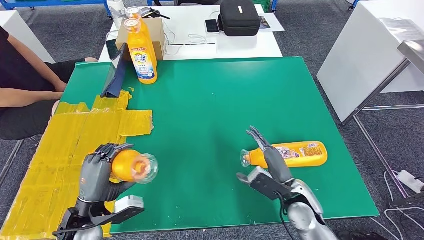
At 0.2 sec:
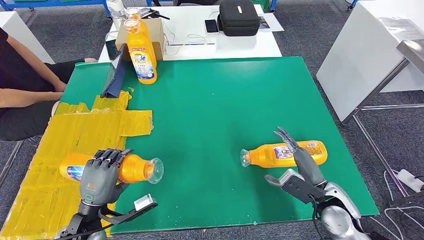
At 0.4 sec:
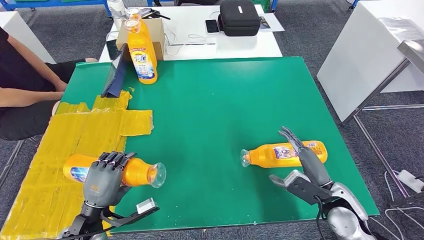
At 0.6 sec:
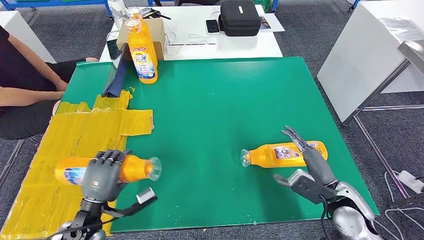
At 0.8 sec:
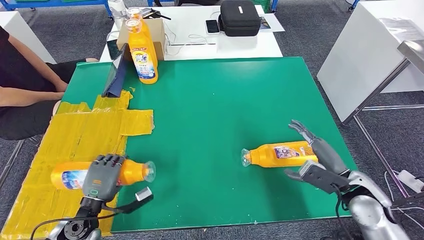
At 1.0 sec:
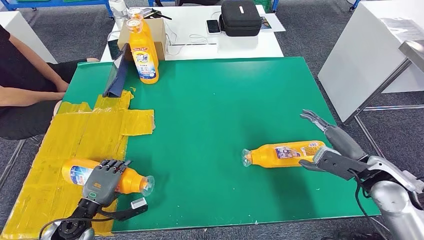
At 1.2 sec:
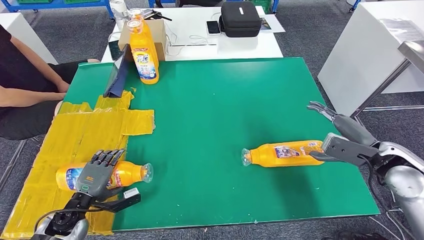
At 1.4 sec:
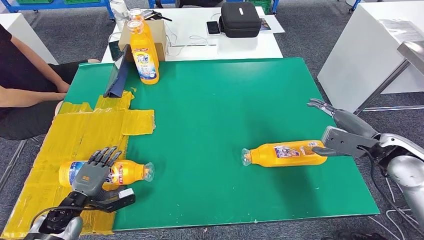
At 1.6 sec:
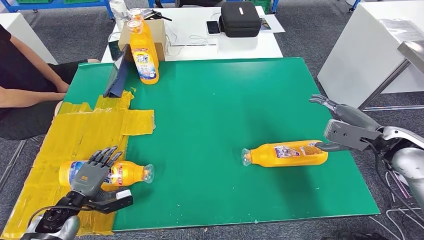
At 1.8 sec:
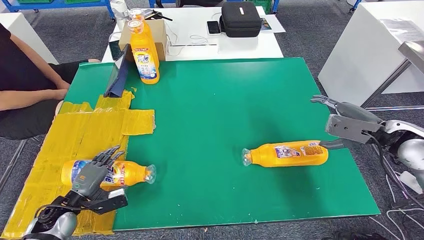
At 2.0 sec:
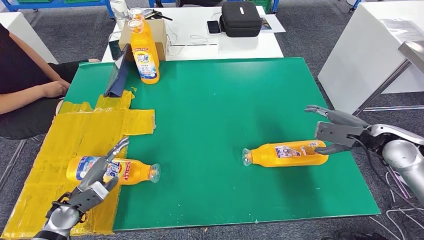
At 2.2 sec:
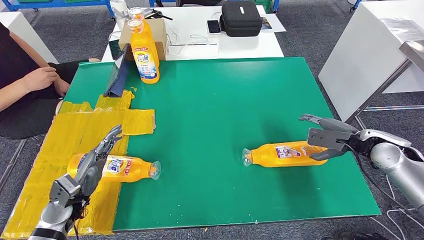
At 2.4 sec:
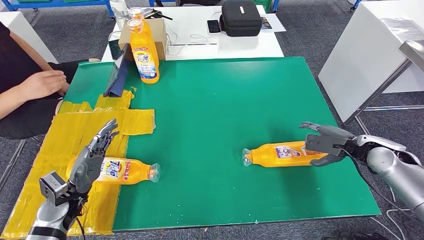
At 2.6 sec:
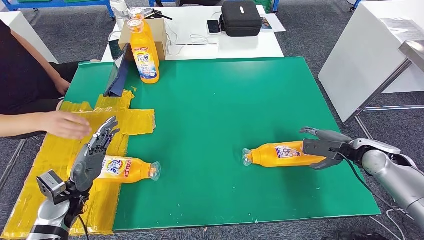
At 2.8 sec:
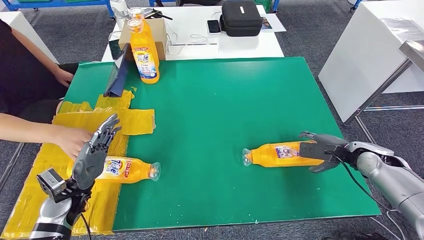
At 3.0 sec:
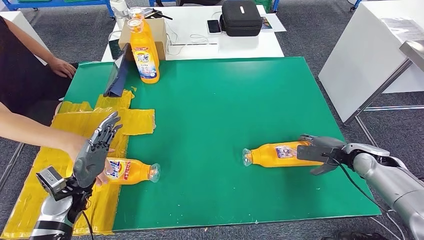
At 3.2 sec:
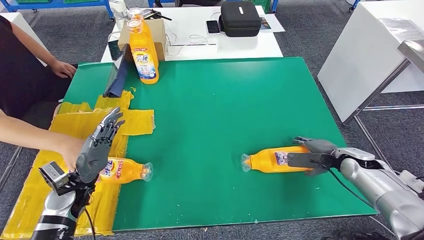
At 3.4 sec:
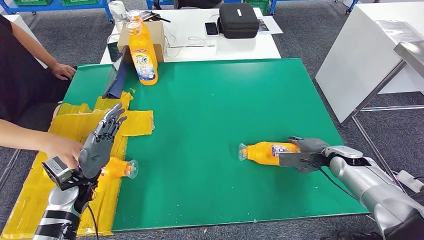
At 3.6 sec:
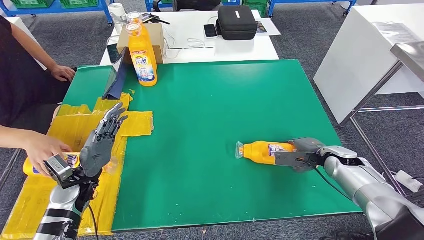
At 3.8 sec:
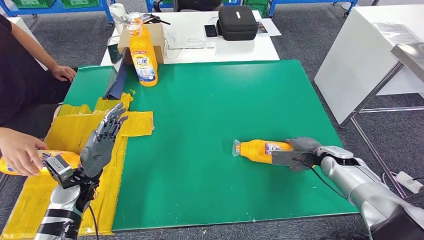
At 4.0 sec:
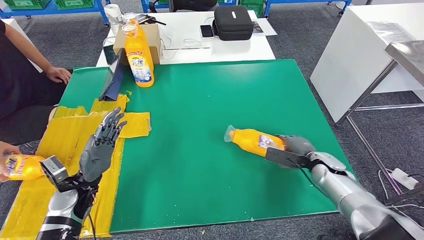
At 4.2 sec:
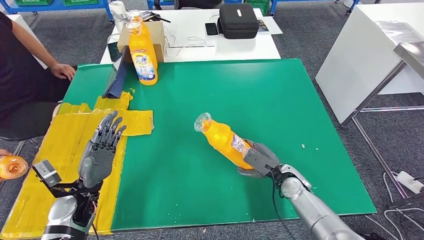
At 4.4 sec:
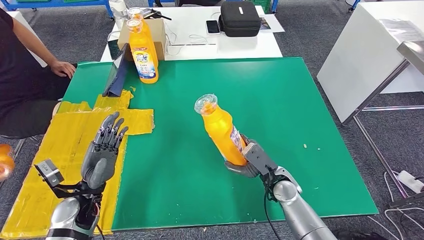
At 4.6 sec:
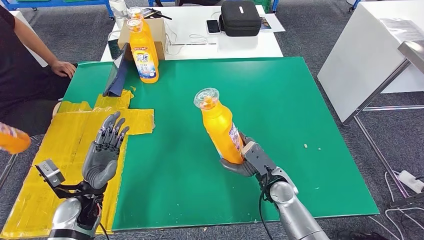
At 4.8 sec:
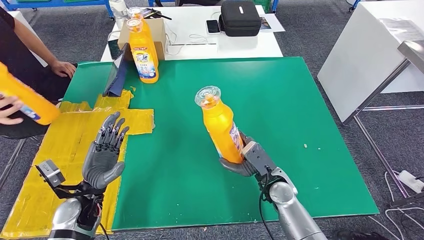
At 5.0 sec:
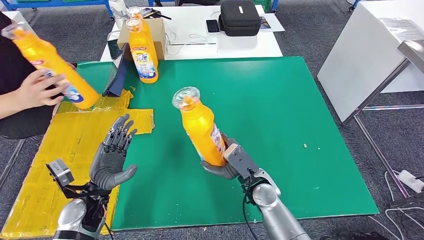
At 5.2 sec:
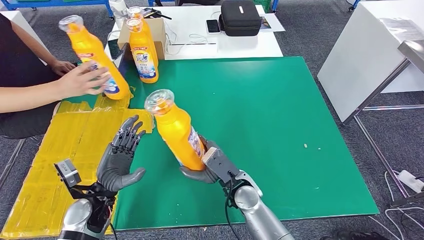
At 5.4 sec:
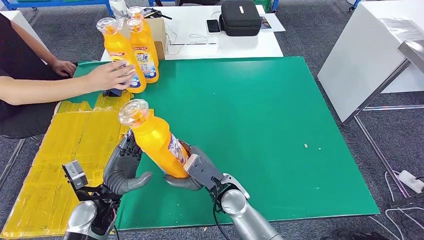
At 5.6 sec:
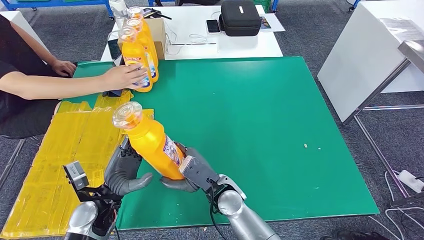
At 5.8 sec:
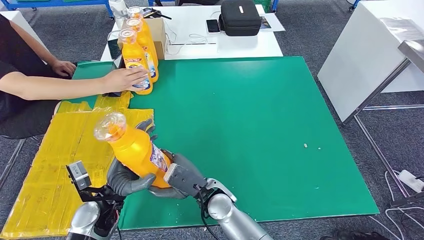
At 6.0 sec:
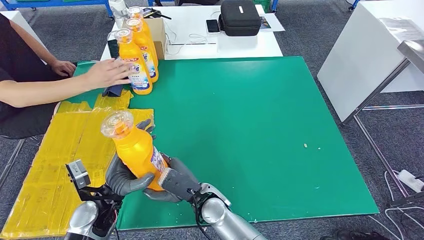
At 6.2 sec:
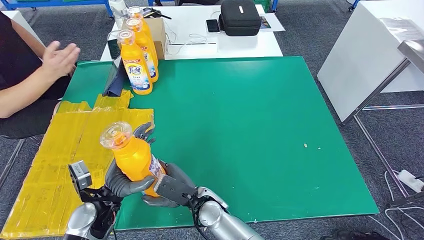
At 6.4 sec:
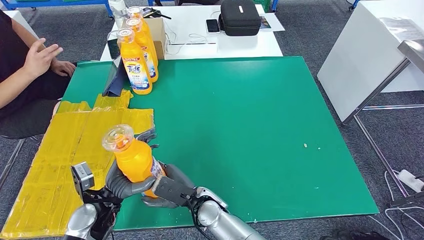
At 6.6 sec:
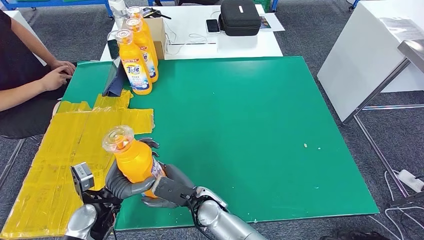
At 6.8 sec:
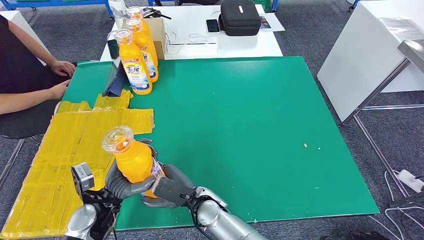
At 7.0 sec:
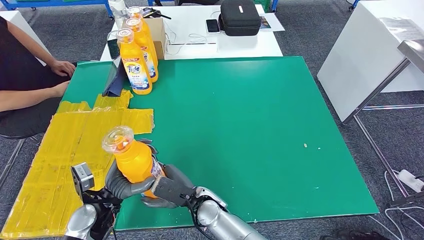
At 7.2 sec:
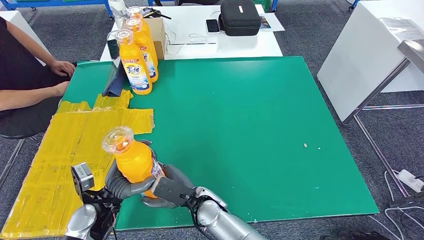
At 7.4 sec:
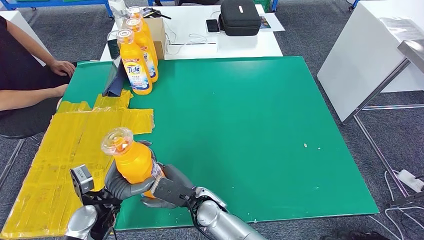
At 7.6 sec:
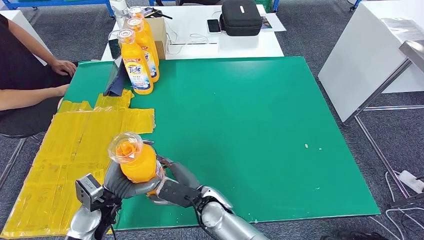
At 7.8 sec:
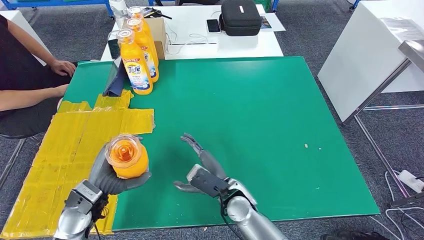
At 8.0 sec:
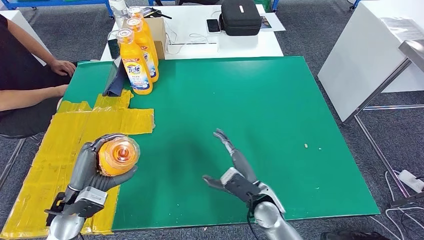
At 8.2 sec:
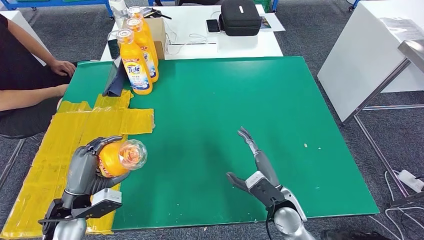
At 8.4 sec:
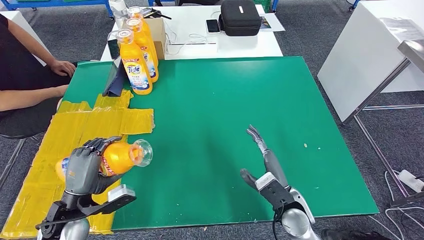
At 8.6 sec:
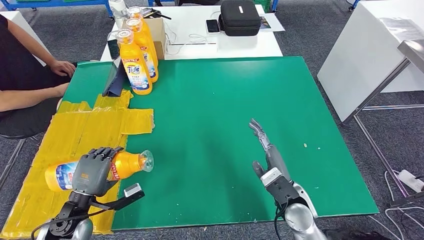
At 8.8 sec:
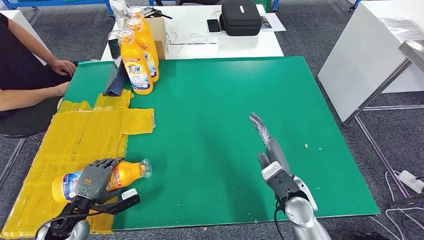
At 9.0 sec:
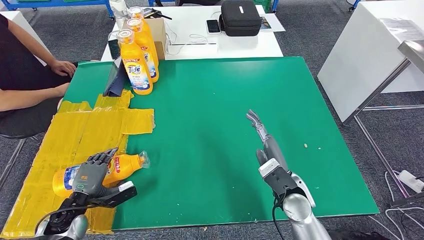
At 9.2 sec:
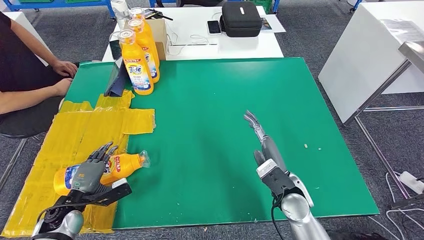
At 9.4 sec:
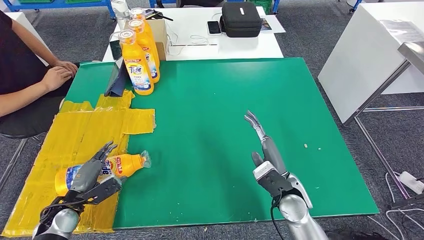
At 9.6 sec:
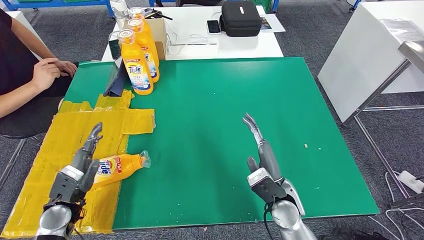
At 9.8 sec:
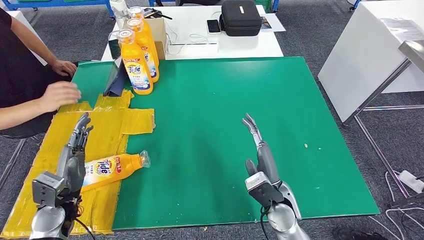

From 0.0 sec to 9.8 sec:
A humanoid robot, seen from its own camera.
Step, from 0.0 sec to 3.4 sec: Flip the fast-moving consumer goods bottle to the front side.
Step, from 3.6 sec to 7.2 sec: Pick up the fast-moving consumer goods bottle from the table.
Step, from 7.6 sec to 9.8 sec: Flip the fast-moving consumer goods bottle to the front side.
From 5.6 sec to 7.0 sec: The right hand goes some 5 cm to the left.
From 7.0 sec to 8.4 sec: The right hand travels to the right by some 20 cm. The left hand moves to the left, some 5 cm.
From 8.4 sec to 9.8 sec: The left hand goes downward and returns, about 10 cm each way.
